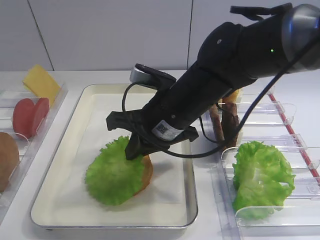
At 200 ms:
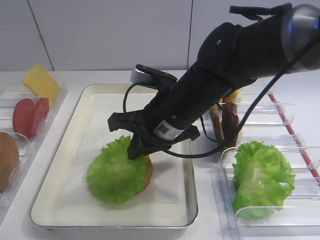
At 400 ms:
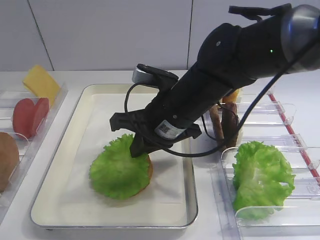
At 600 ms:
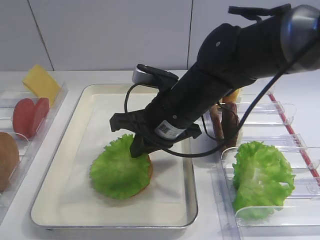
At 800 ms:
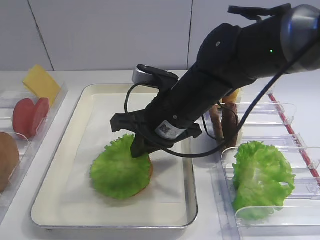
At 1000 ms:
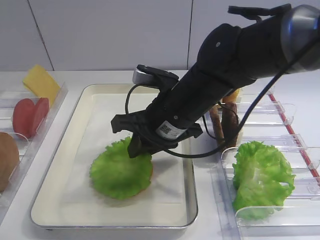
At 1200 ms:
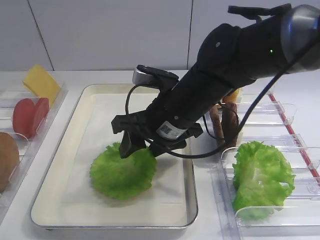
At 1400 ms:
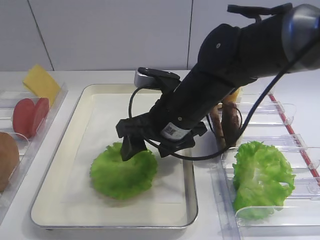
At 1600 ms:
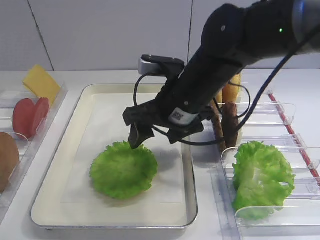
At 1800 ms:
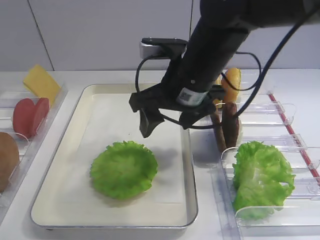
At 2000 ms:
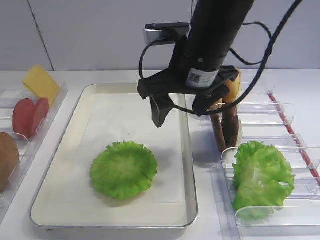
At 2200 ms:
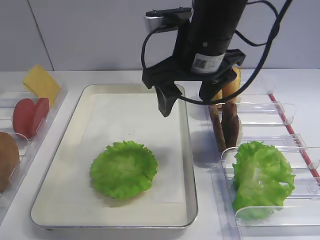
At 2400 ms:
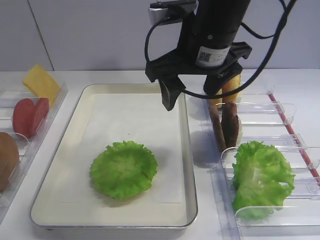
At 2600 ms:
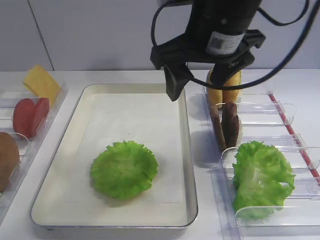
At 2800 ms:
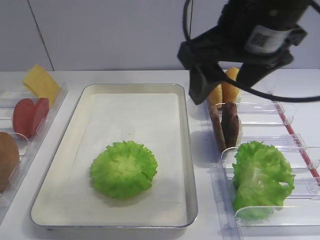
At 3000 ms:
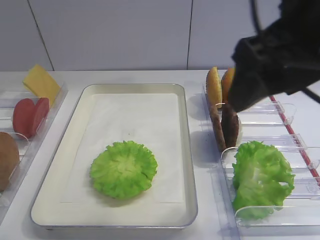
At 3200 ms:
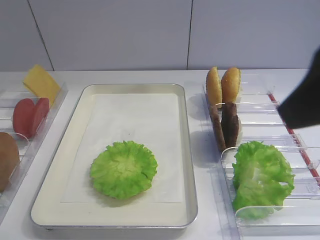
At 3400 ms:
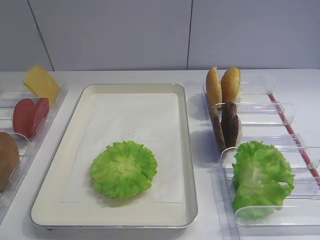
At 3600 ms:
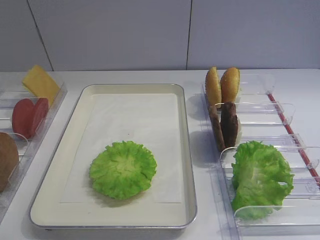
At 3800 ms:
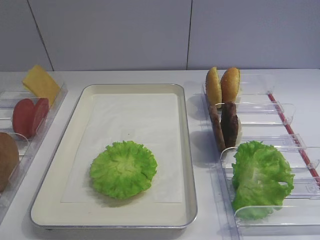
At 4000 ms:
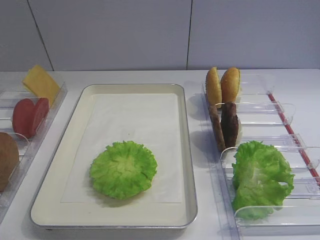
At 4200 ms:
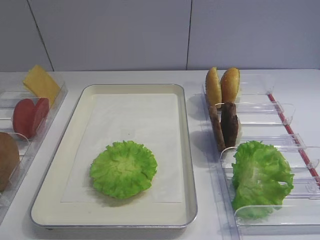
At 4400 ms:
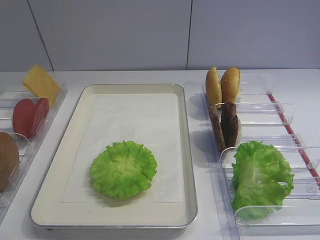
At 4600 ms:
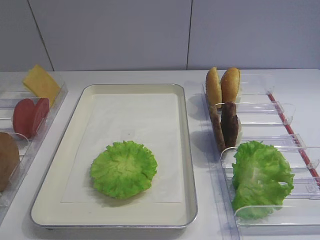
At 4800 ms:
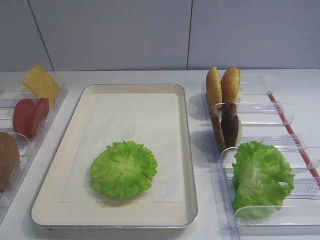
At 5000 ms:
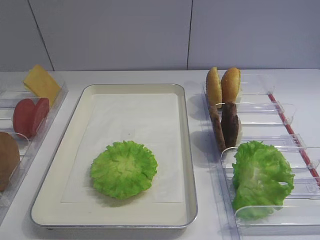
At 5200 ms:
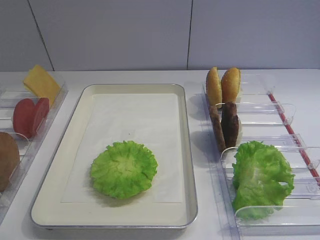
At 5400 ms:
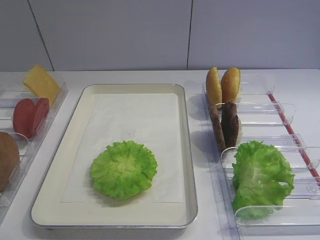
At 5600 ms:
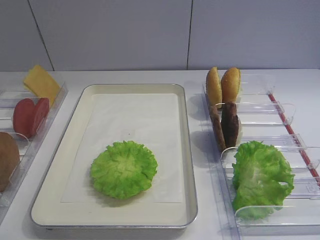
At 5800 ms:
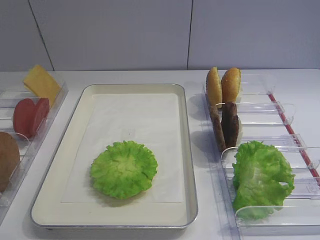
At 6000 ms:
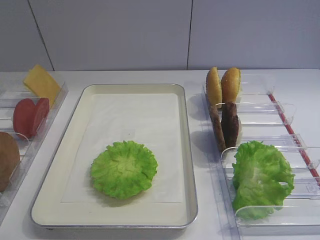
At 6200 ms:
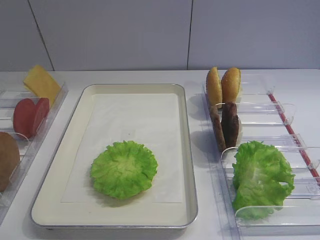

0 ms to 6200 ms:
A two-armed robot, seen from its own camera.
0 ms to 1600 ms: The right gripper opens its fingers.
1600 ms to 3200 ms: The right gripper goes about 30 cm backward, upward and to the right.
3200 ms to 4600 ms: The right gripper is displaced backward, downward and to the right by approximately 20 cm.
4600 ms to 6200 ms: Neither gripper changes place.
